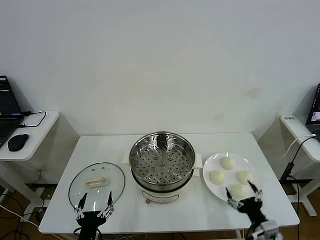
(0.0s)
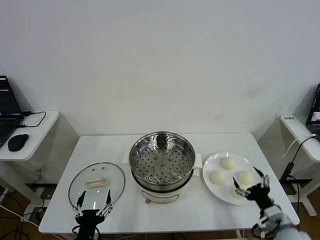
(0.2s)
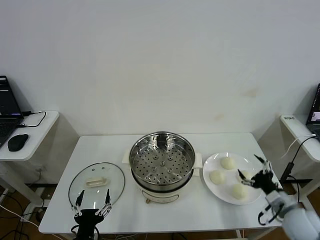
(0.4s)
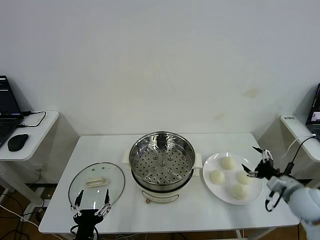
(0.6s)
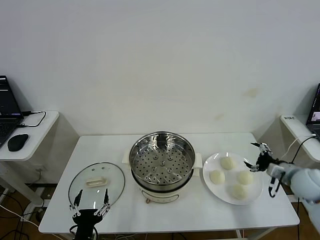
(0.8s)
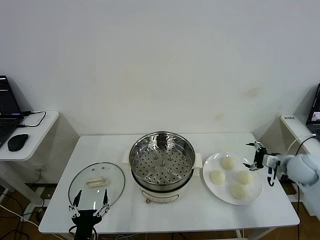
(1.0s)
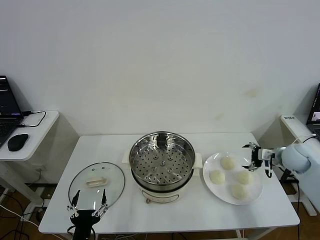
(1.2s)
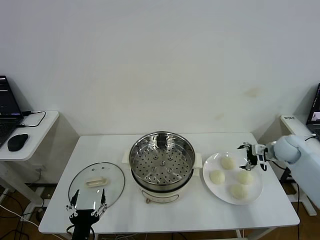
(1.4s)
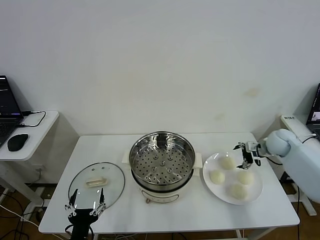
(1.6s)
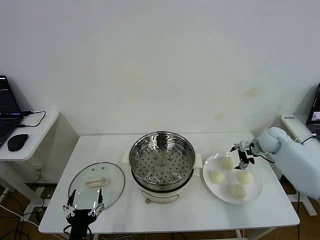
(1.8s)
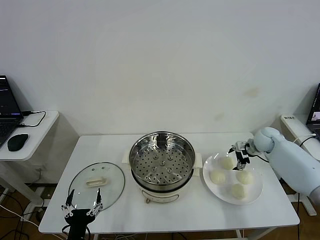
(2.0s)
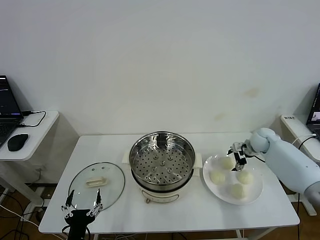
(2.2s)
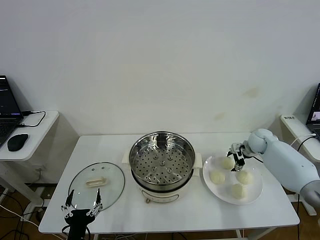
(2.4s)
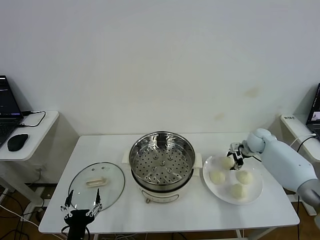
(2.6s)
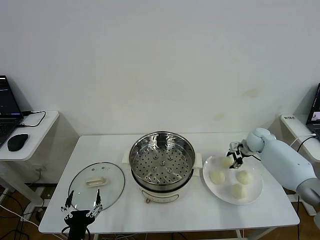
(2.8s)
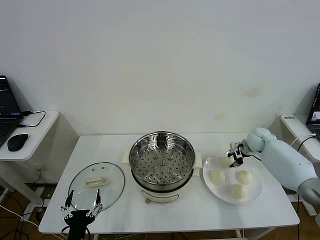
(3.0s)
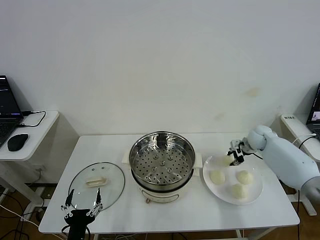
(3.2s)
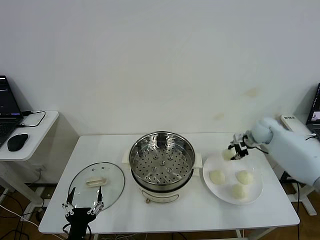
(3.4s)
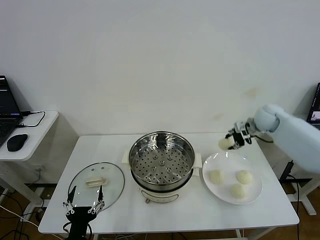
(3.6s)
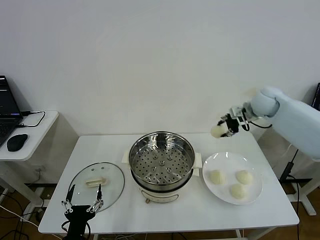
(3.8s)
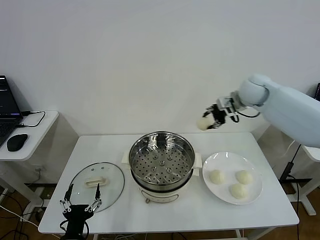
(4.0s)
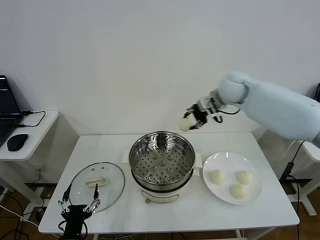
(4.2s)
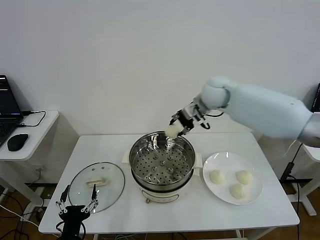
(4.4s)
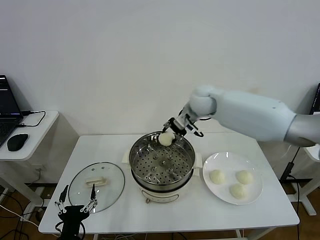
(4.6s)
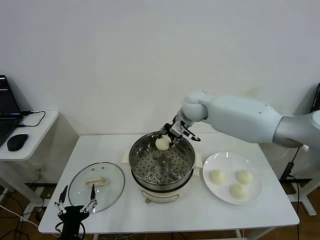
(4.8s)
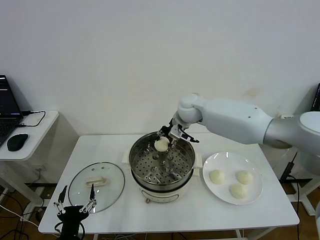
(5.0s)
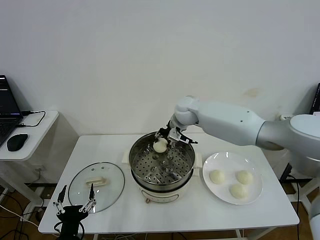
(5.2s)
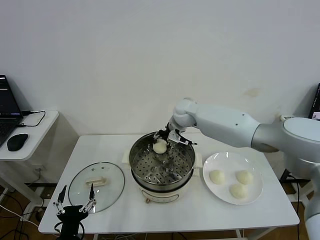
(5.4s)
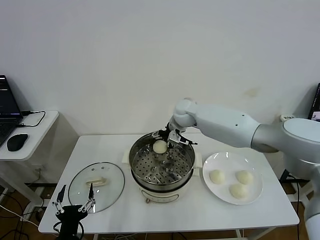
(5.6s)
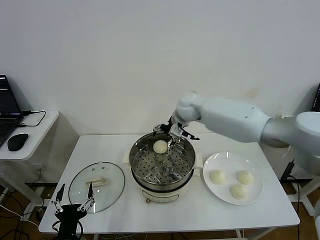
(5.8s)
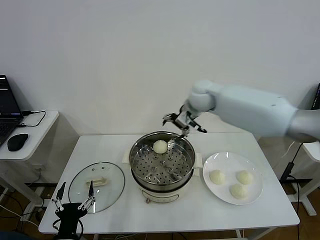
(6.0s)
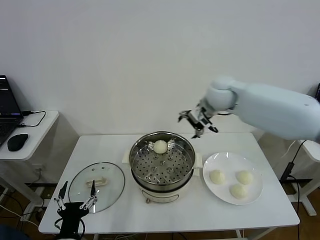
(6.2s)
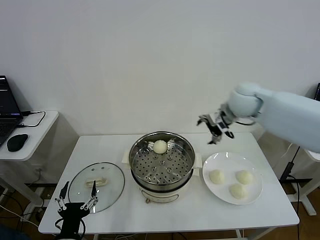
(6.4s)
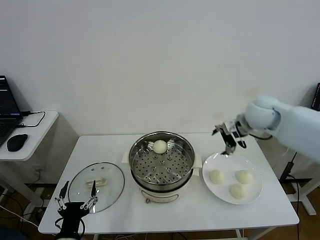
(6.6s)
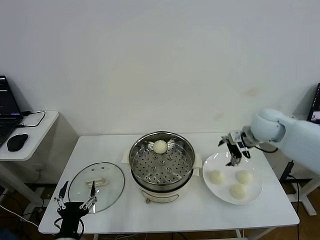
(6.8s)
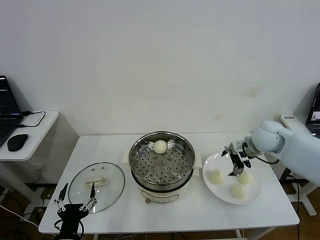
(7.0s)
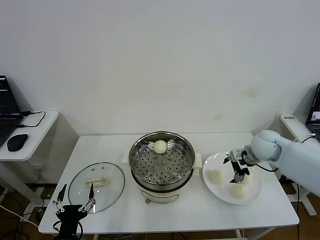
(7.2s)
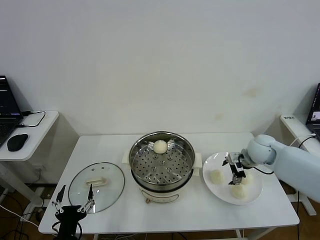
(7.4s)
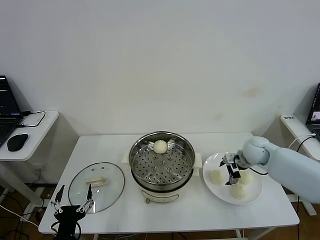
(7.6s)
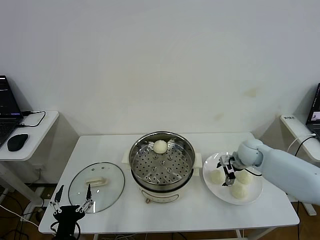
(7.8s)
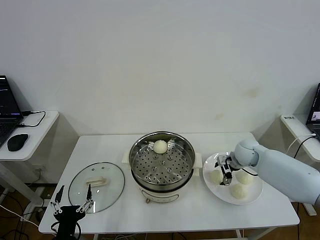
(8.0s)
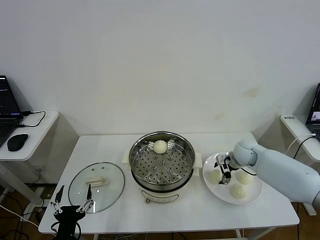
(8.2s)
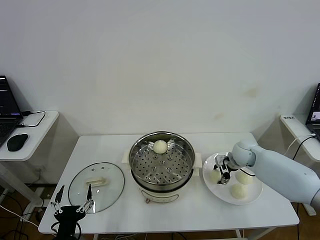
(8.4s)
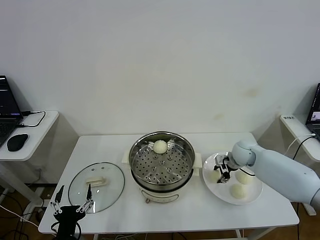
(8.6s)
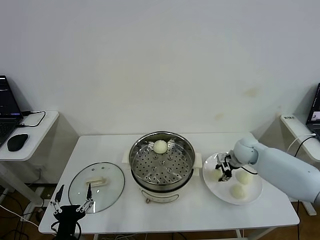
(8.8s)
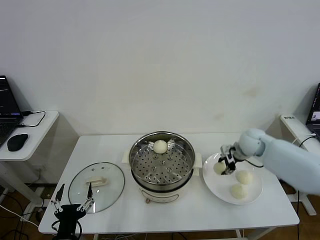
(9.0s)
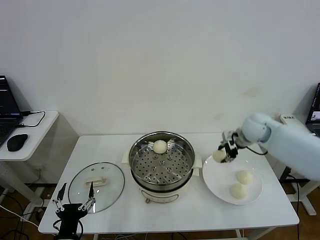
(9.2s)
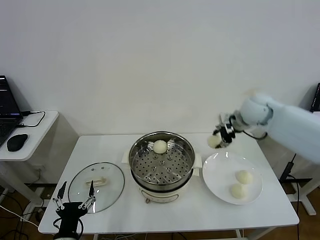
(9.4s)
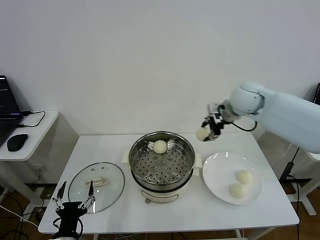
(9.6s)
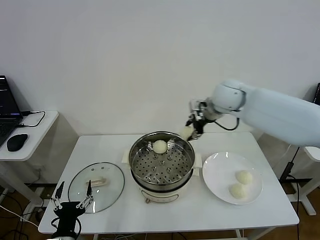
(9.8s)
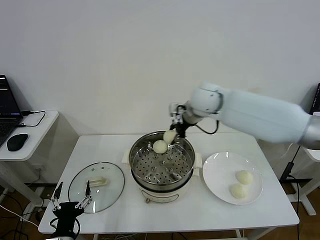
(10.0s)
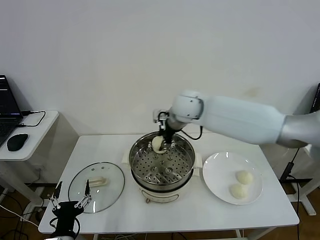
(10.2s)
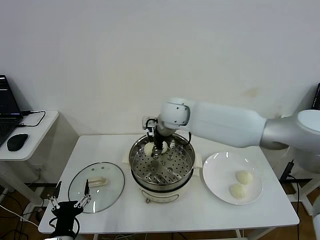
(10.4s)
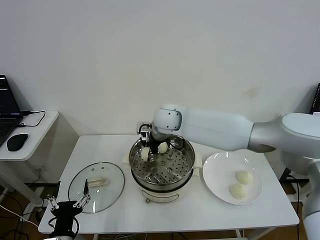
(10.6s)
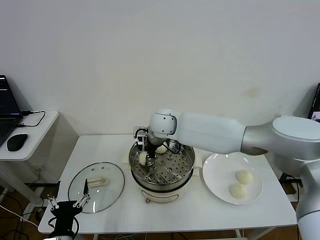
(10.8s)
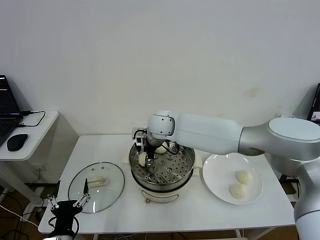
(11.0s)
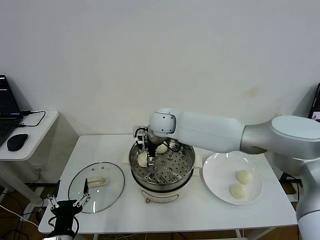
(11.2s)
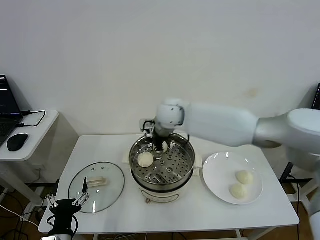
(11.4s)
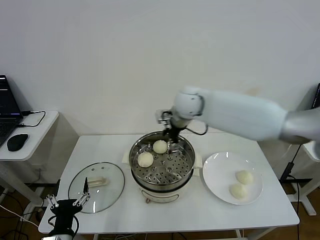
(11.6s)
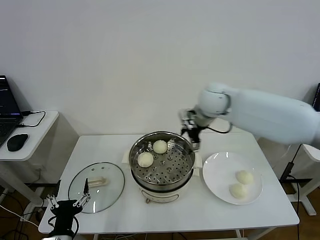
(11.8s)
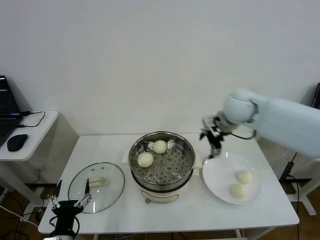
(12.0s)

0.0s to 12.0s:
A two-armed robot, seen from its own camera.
Step, 0.0s to 2.8s: Grasp the baozi in the plate with right gripper.
Step, 3.0s to 5.6s: Place the baozi on the steamer with right gripper.
Step, 5.8s to 8.4s: Grasp the baozi in the plate with right gripper.
Step, 8.6s to 11.0s: Place the baozi on the steamer with right gripper.
1.6s to 3.0s: The right gripper shifts by about 5 cm, and closes up.
3.0s to 4.4s: The right gripper is displaced to the left and upward by approximately 30 cm.
4.4s to 6.0s: The right gripper moves approximately 10 cm downward and comes back, and opens.
6.0s to 7.6s: The right gripper is displaced downward and to the right by approximately 25 cm.
7.6s to 9.0s: The right gripper heads upward, covering some 5 cm, and closes.
9.0s to 10.4s: The right gripper heads to the left, covering some 30 cm.
10.4s to 12.0s: The right gripper moves to the right, some 20 cm, and opens its fingers.

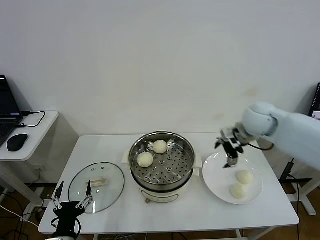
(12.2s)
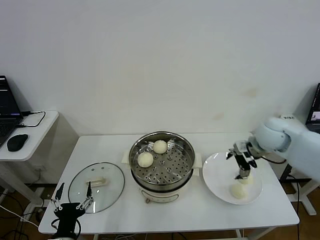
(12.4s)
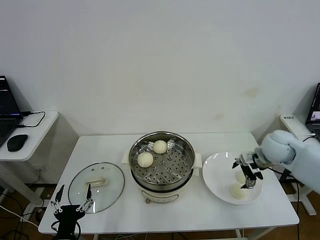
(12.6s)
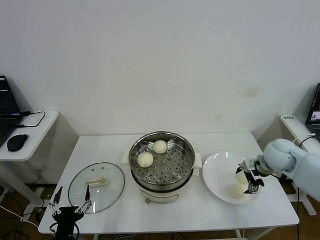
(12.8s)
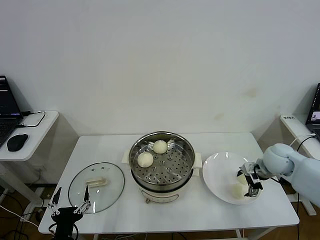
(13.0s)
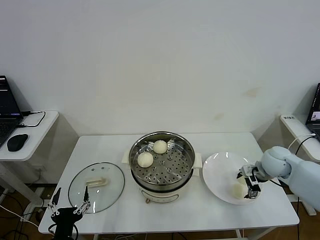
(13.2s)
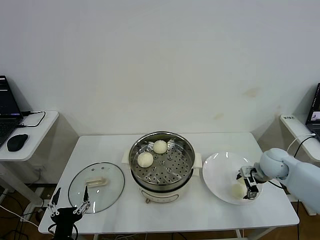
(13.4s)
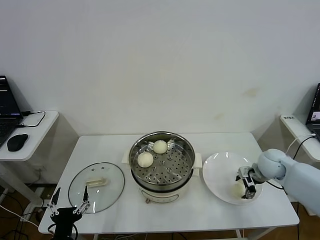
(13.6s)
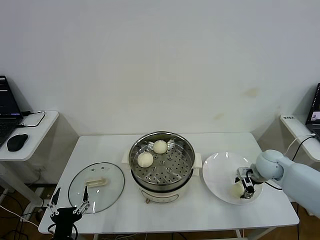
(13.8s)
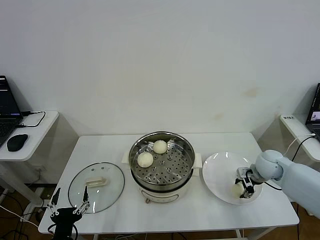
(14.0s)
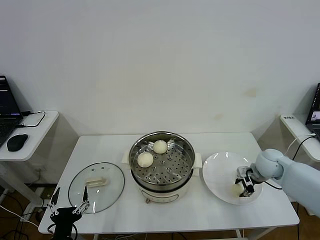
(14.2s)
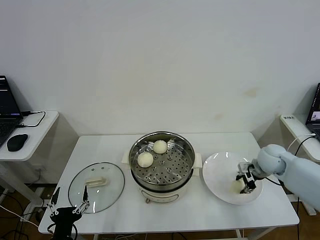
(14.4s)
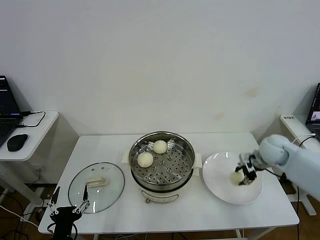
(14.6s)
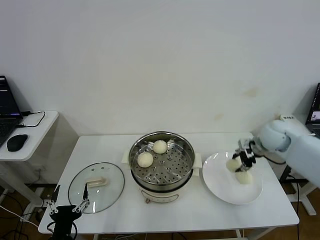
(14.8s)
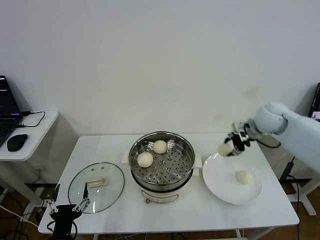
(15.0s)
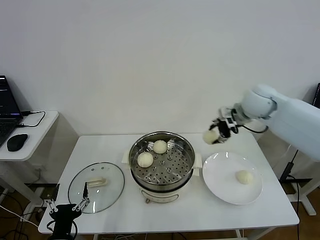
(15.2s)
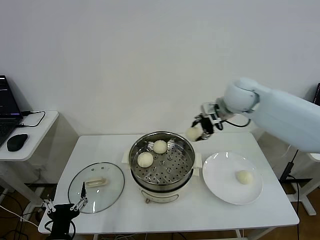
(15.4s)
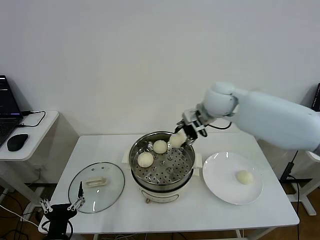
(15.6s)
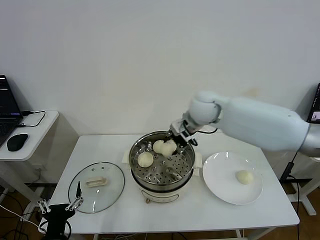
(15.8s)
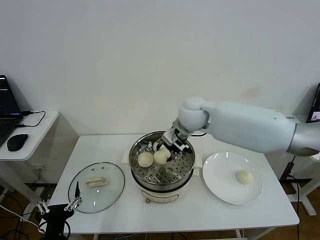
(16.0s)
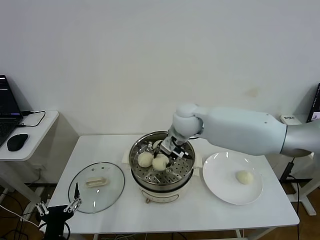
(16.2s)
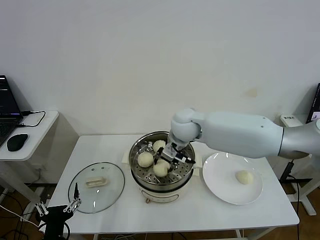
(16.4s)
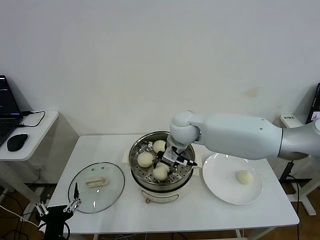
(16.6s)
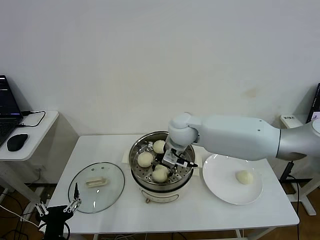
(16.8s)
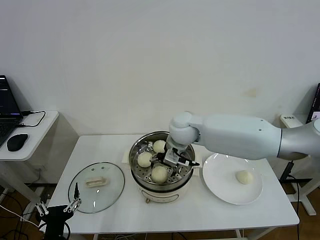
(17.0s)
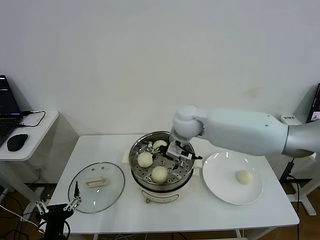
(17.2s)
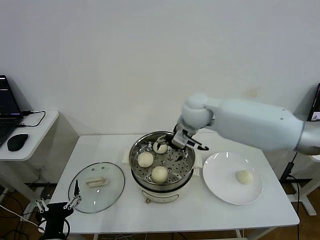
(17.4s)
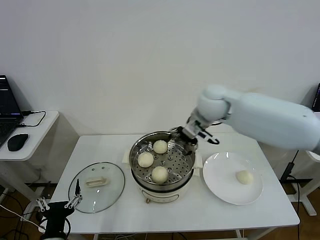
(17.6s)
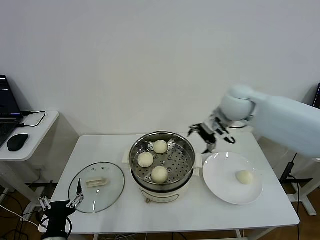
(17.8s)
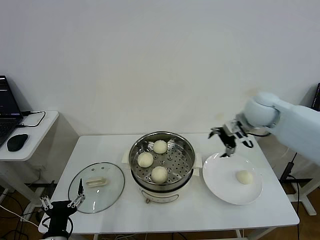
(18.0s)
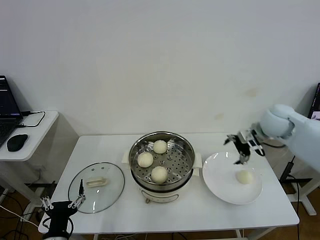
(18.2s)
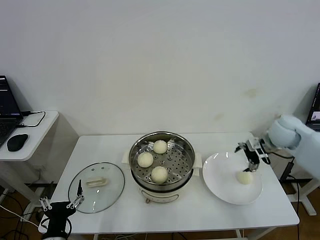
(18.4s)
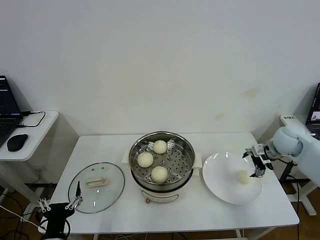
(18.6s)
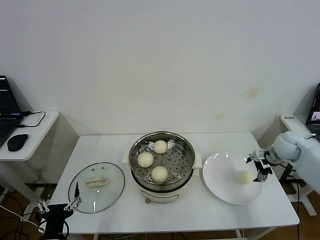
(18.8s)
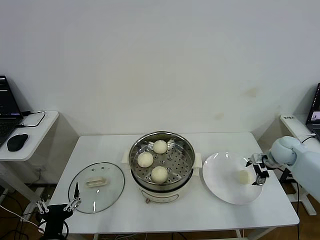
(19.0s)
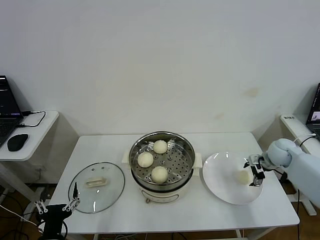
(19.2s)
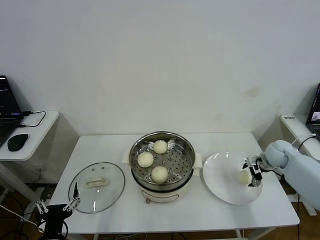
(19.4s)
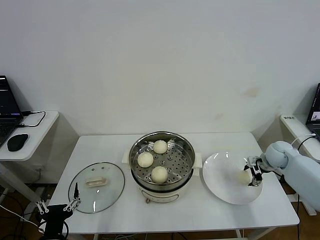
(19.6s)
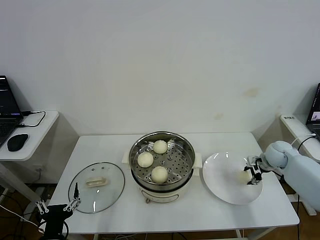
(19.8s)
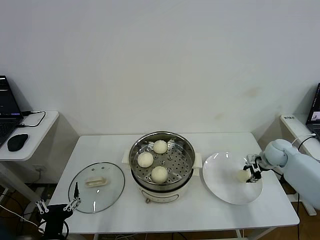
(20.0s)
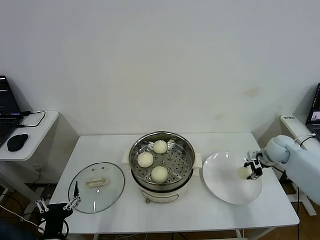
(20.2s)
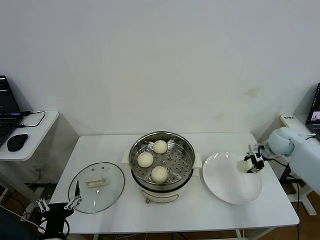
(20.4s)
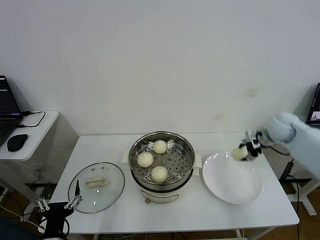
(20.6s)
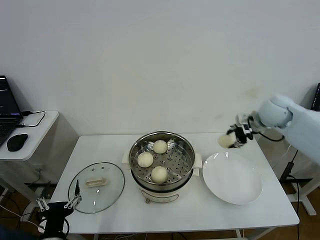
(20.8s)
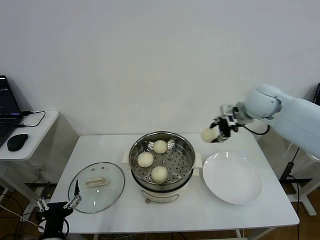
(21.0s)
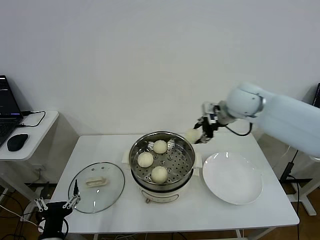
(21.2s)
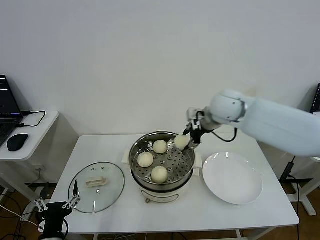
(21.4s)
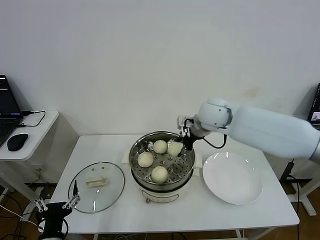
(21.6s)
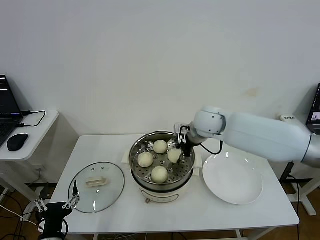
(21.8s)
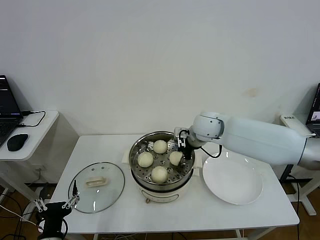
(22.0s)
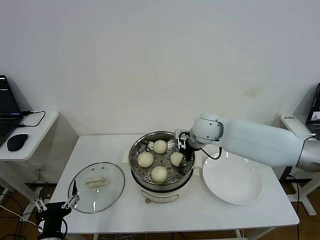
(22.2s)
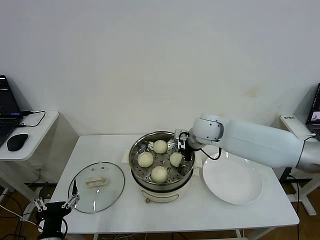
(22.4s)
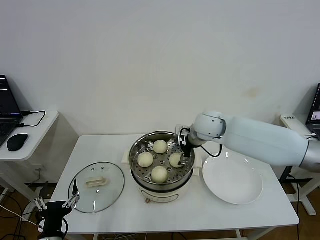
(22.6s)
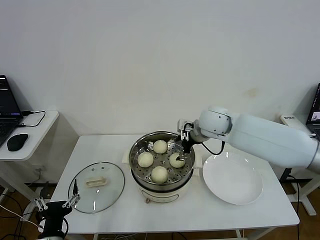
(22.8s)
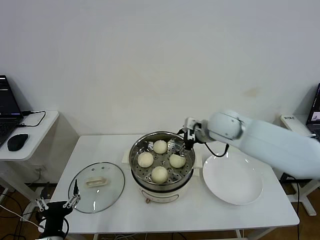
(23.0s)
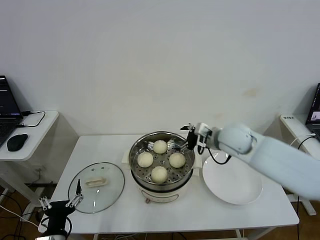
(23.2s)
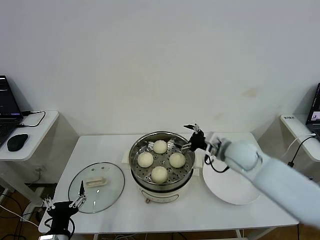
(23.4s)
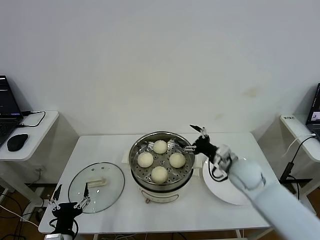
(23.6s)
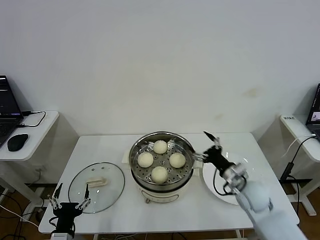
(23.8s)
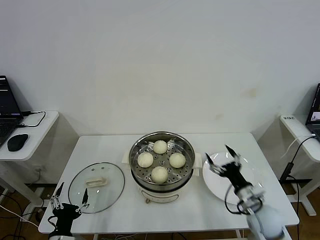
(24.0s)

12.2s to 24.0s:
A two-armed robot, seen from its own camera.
Step, 12.2s to 14.0s: Grasp the baozi in the plate with right gripper.
Step, 14.2s to 17.0s: Place the baozi on the steamer with right gripper.
Step, 17.2s to 19.8s: Grasp the baozi in the plate with right gripper.
Step, 20.0s to 22.6s: Place the baozi on the steamer with right gripper.
12.2s to 13.6s: The right gripper travels downward and to the right by some 15 cm.
13.6s to 15.2s: The right gripper is displaced upward, to the left and forward by about 25 cm, and closes up.
15.2s to 16.6s: The right gripper travels to the left by some 20 cm.
16.6s to 18.2s: The right gripper heads to the right, covering roughly 30 cm, and opens.
18.2s to 19.6s: The right gripper is displaced downward and to the right by some 20 cm.
19.6s to 21.0s: The right gripper travels upward and to the left by about 30 cm, and closes.
21.0s to 22.6s: The right gripper moves to the left and downward, some 15 cm, and opens.
22.6s to 24.0s: The right gripper travels backward, downward and to the right by roughly 35 cm.
